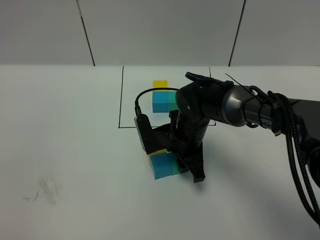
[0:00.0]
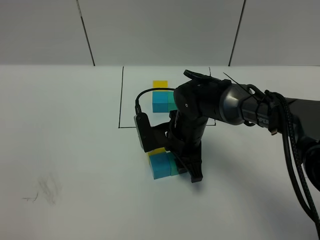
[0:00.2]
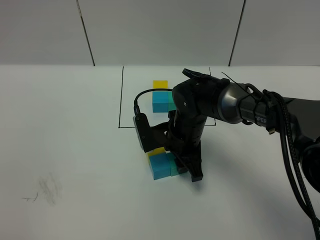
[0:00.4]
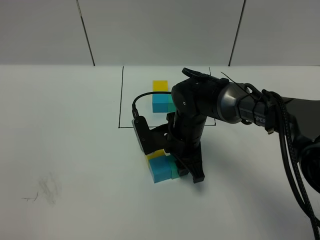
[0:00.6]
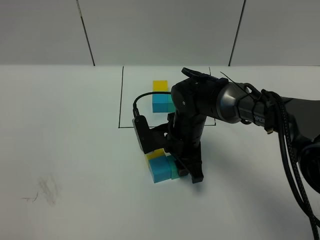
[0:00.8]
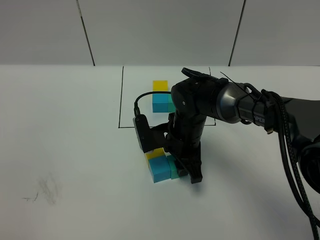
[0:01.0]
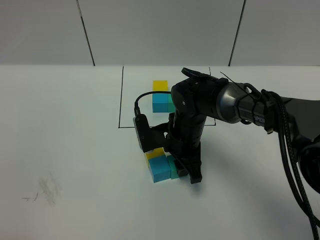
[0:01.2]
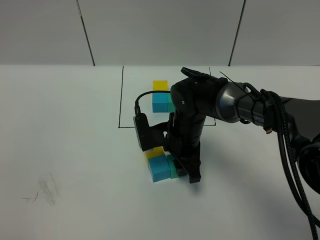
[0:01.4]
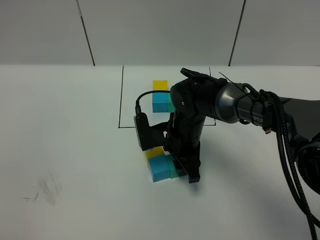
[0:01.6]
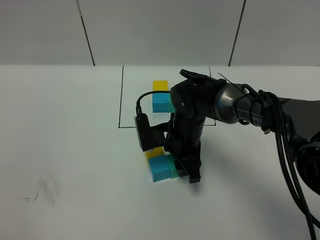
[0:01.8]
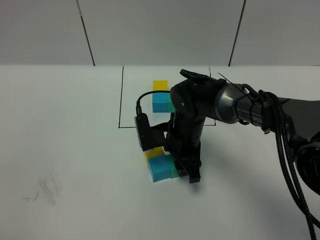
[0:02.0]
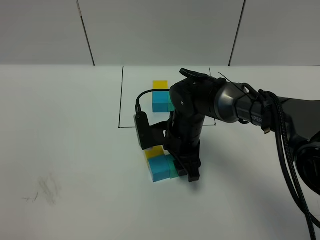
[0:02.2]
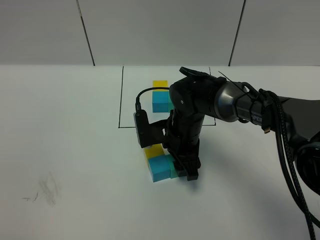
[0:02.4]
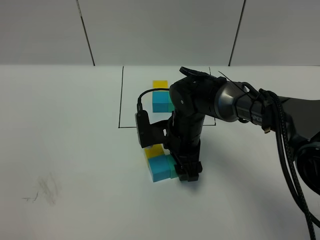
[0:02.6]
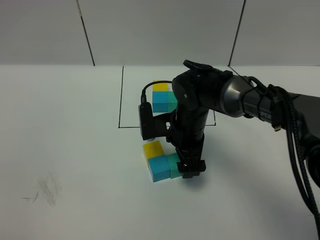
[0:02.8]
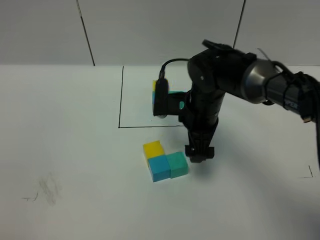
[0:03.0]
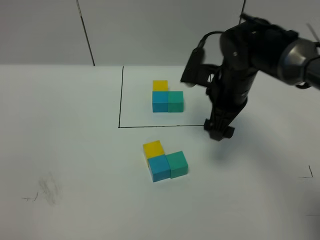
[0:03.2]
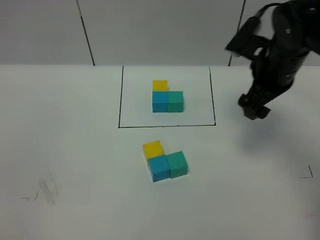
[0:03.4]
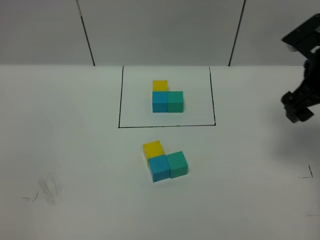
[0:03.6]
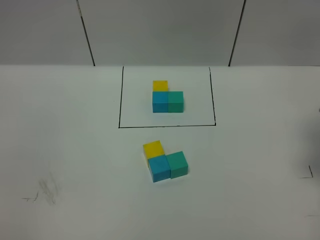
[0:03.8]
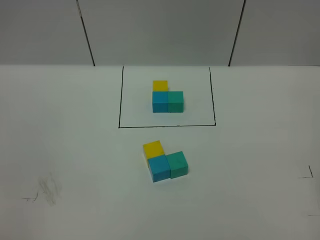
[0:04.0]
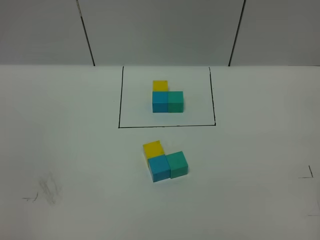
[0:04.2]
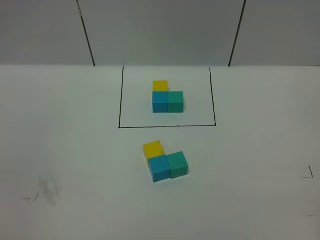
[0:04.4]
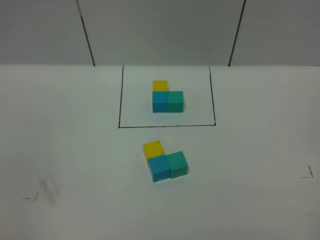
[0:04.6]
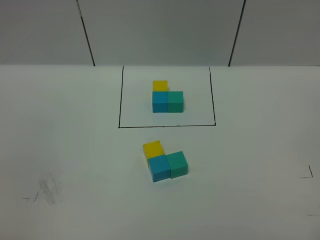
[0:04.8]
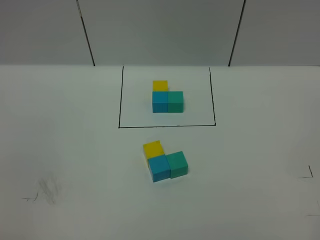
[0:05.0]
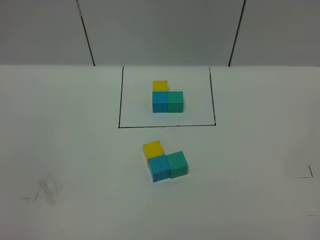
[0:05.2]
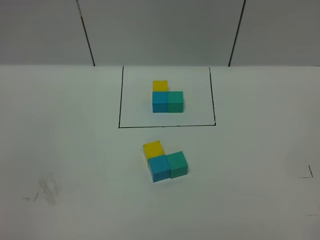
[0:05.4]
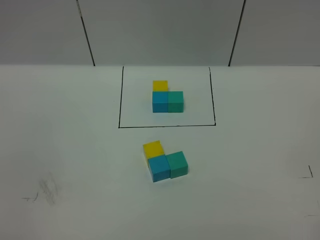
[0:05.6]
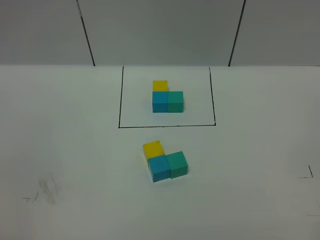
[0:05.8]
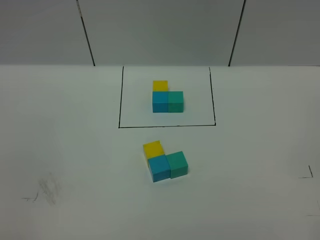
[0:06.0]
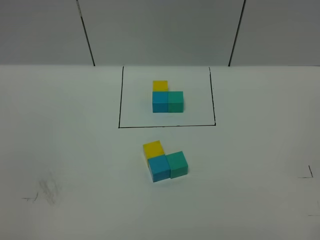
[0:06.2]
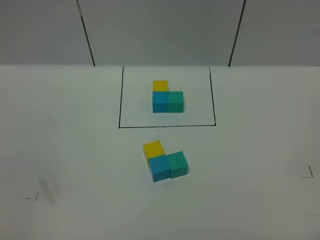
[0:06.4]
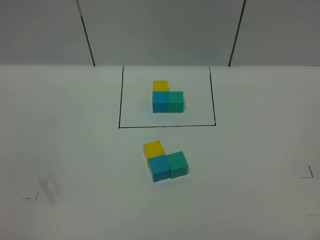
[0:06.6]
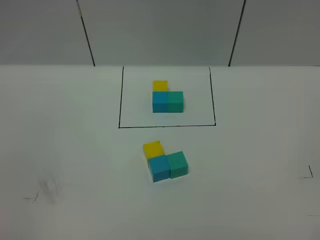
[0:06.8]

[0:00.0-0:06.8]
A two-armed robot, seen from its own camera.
Task of the whole recording: According to the building block template in front, assemble the scattered blocks together.
Step, 0:00.0 to 0:02.8: Put the green cube on the right of the blue cube.
0:00.0 to 0:01.4: The grippers make only small movements.
0:01.4 to 0:02.8: The right gripper opens.
0:02.8 to 0:04.0: The right gripper goes some 35 cm to the right, upward and backward.

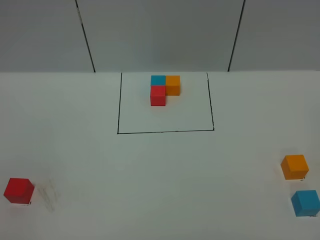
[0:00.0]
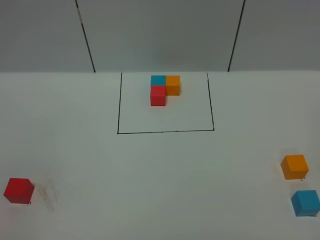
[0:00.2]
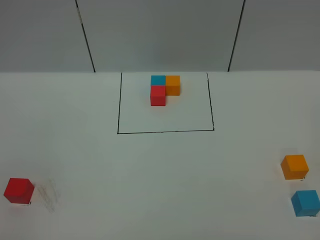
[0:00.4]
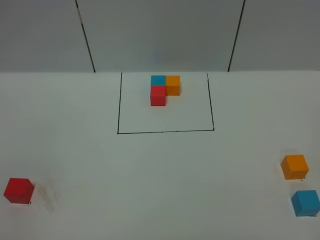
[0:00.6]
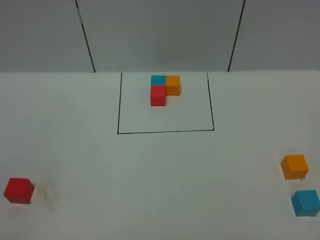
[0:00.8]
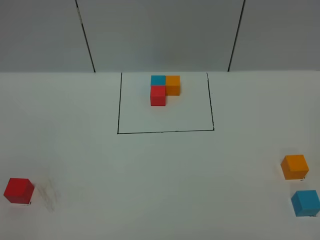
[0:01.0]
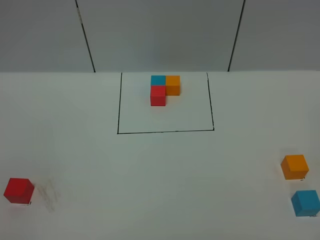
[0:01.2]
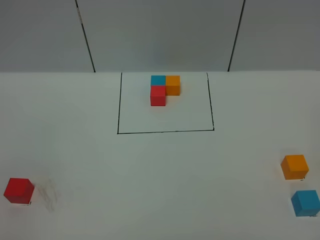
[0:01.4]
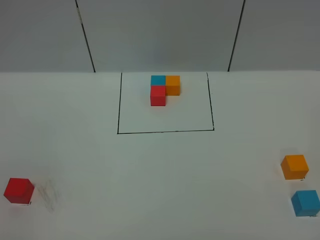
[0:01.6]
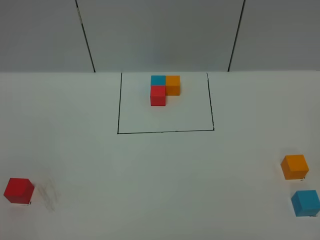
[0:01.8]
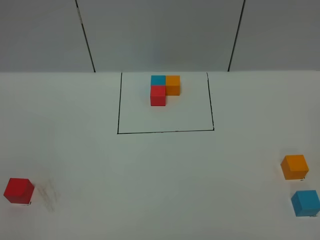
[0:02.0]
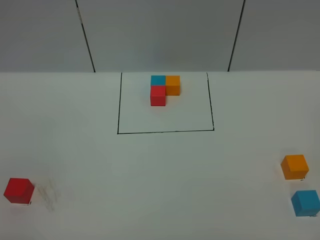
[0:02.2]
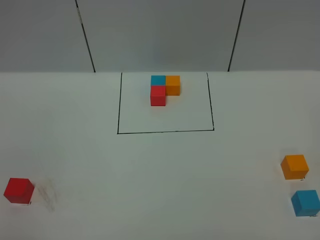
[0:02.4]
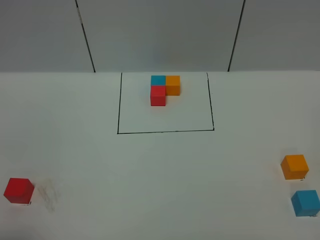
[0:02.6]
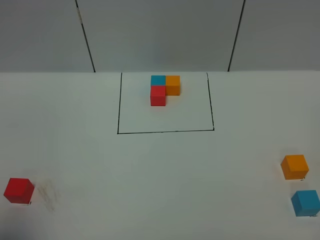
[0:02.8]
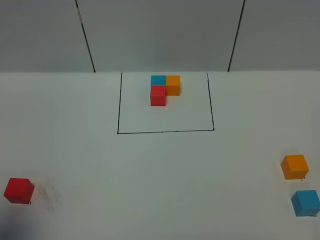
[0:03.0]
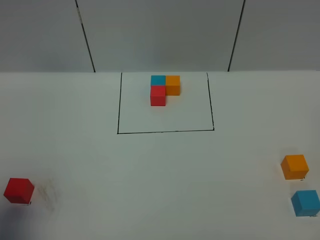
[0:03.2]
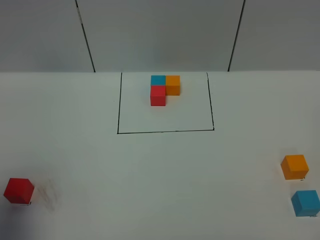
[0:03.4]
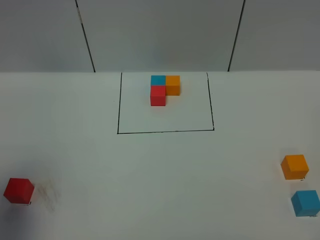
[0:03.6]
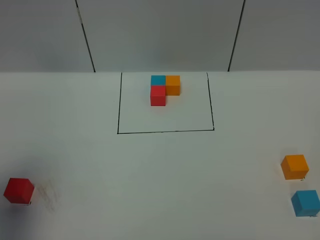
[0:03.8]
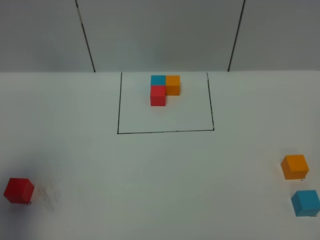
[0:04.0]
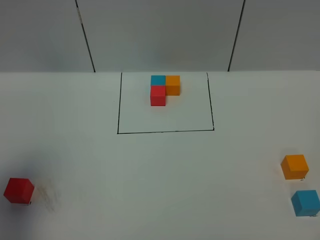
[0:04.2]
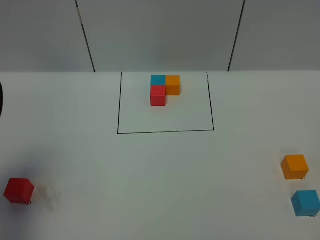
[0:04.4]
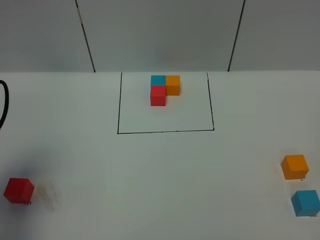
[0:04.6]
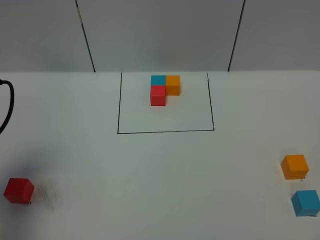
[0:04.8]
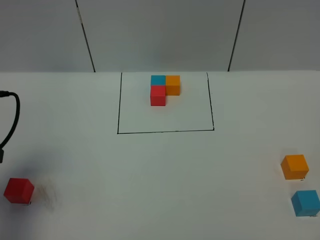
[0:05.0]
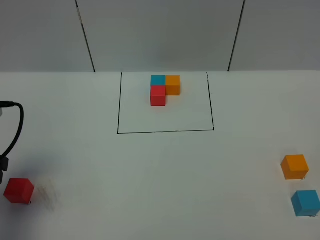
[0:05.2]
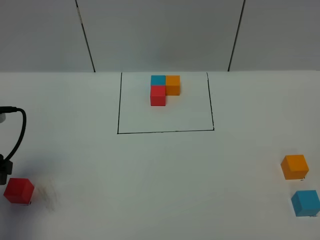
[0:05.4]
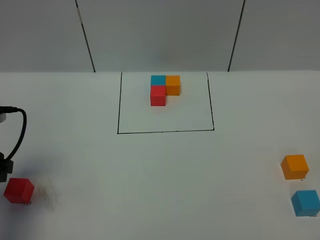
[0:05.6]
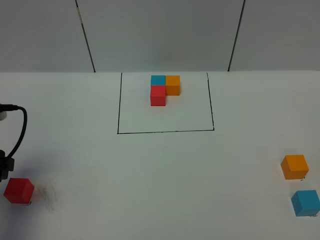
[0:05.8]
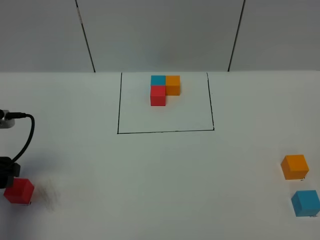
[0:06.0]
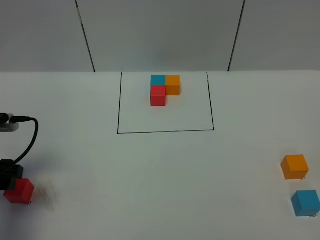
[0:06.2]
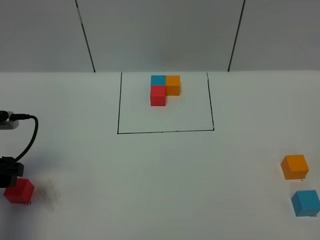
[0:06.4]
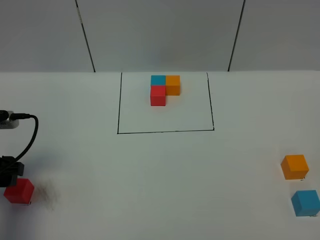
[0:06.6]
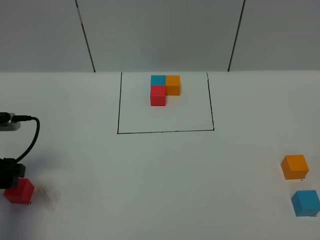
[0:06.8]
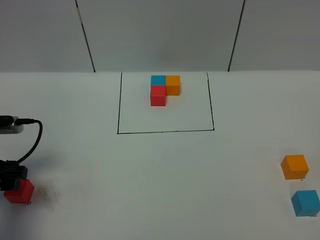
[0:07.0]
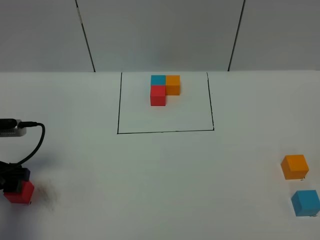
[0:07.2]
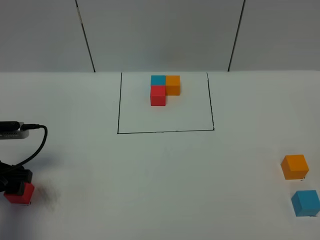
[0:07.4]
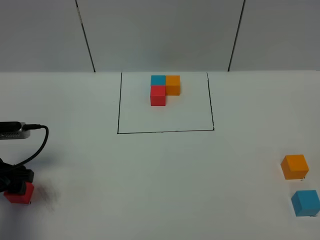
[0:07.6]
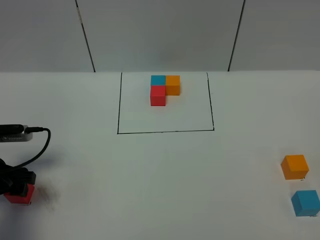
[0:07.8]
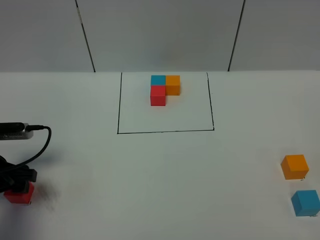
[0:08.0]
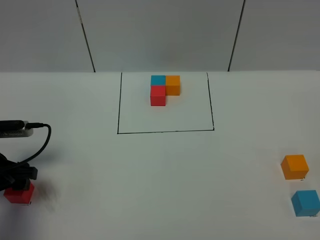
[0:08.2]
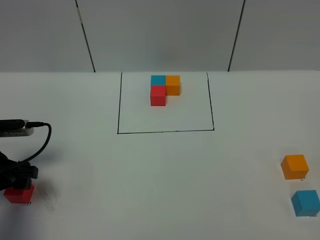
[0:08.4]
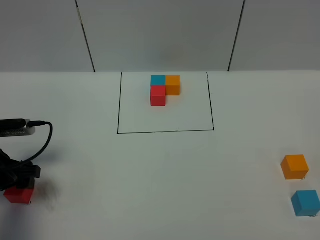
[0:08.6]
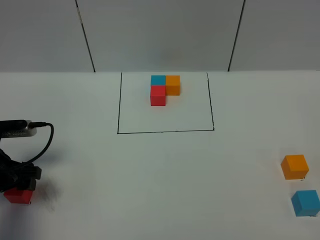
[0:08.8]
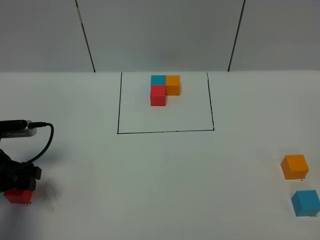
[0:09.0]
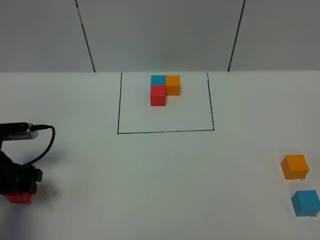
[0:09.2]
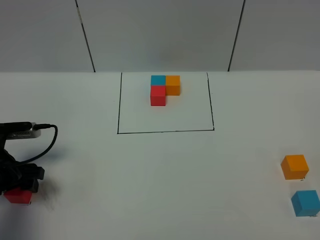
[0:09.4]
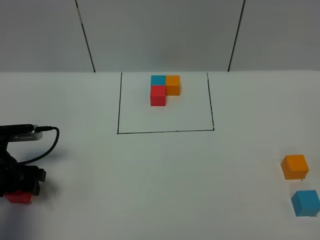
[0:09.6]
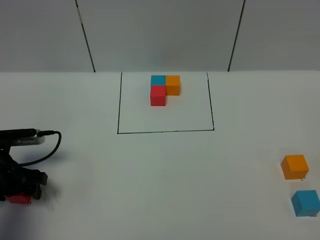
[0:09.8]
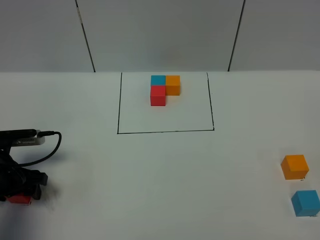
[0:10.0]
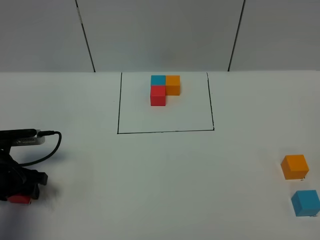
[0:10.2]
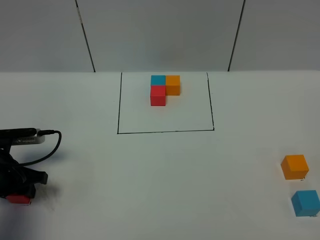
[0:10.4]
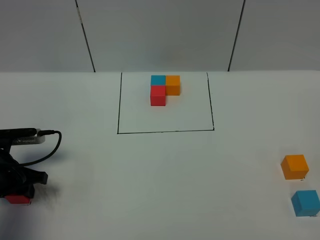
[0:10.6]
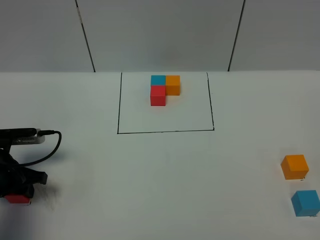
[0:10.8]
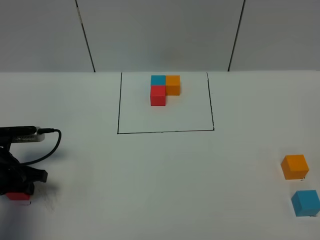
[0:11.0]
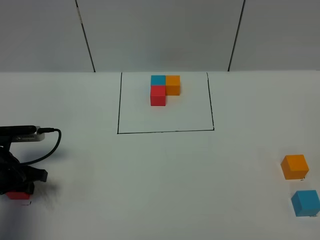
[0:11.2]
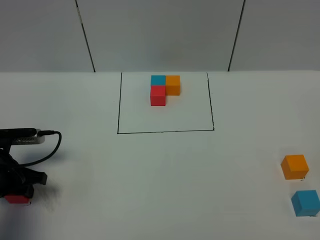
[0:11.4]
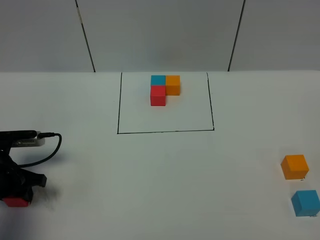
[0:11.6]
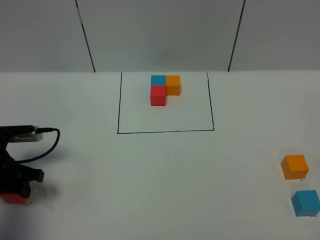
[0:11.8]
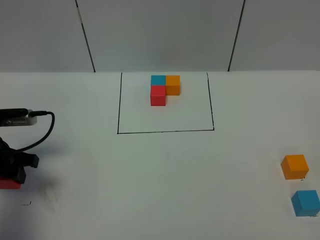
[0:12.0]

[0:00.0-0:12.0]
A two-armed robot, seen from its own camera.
Task of the whole recording: According to the building block template in front, assemble the scattered blocks together.
0:00.0 to 0:01.6: Both grippers stay about where they are.
0:01.6 to 0:03.0: The left gripper heads forward and upward, covering approximately 15 cm.
0:03.0 to 0:04.4: The left gripper is displaced forward and downward by roughly 15 cm.
0:04.4 to 0:06.0: The left gripper is displaced downward by some 10 cm.
0:06.0 to 0:07.6: The left gripper moves some 5 cm.
0:07.6 to 0:09.0: Neither gripper changes place.
0:09.0 to 0:10.4: The left gripper closes.
0:10.4 to 0:12.0: The left gripper travels upward by approximately 5 cm.

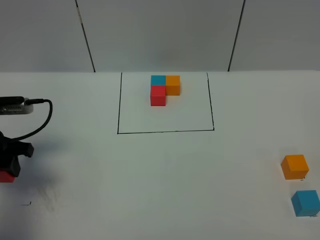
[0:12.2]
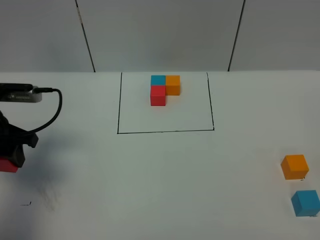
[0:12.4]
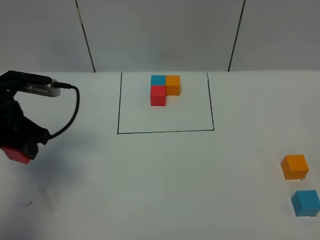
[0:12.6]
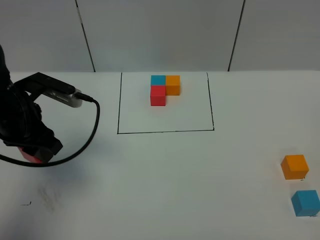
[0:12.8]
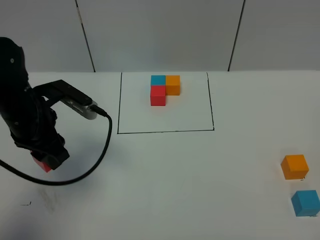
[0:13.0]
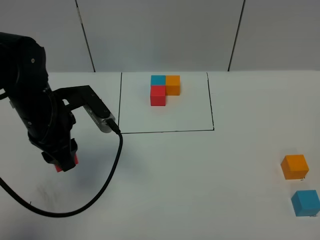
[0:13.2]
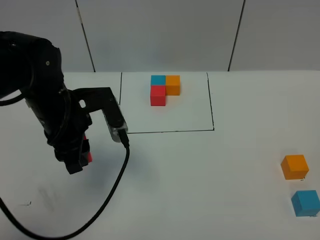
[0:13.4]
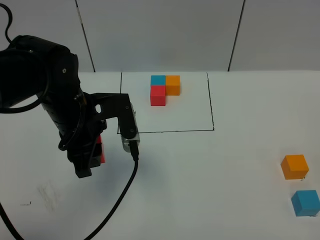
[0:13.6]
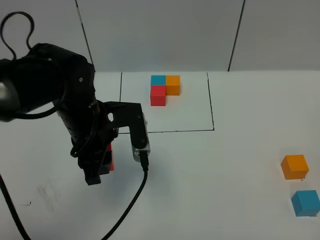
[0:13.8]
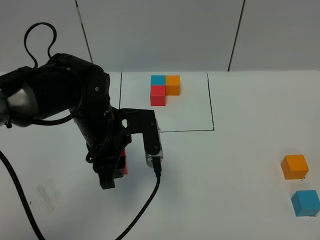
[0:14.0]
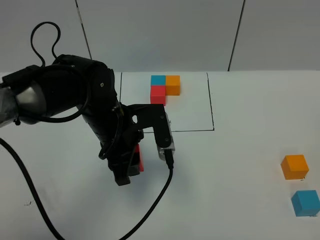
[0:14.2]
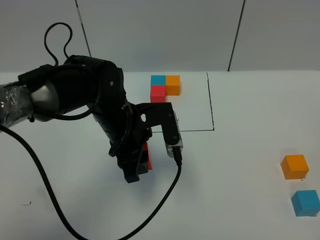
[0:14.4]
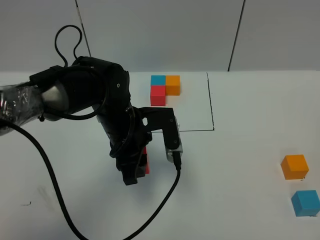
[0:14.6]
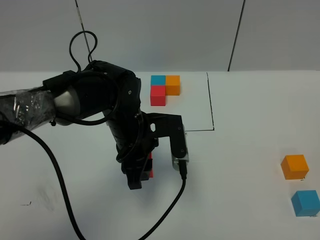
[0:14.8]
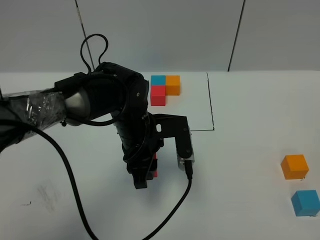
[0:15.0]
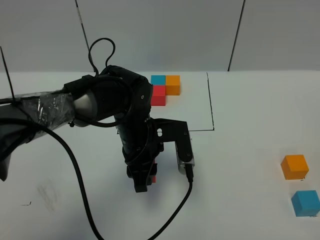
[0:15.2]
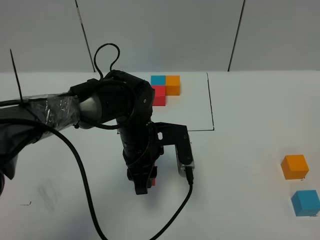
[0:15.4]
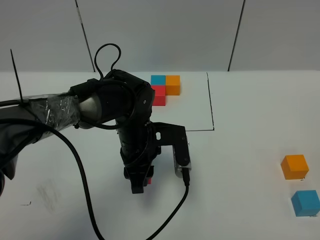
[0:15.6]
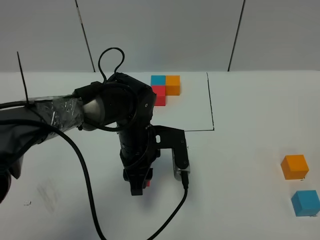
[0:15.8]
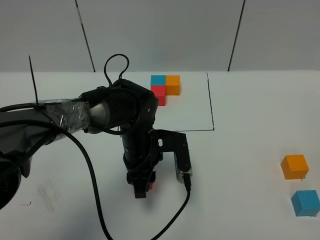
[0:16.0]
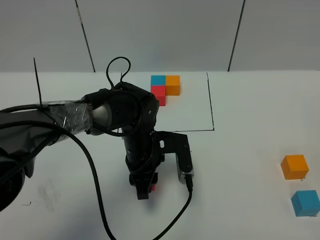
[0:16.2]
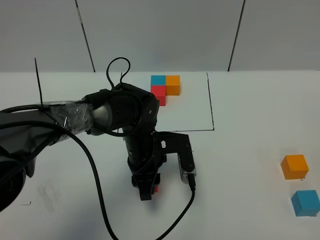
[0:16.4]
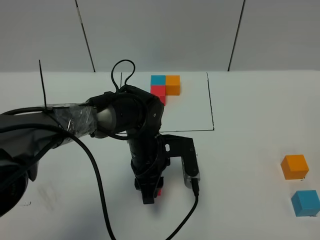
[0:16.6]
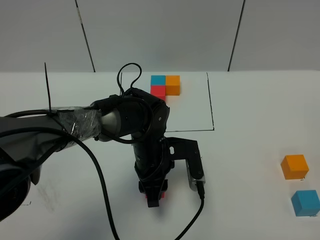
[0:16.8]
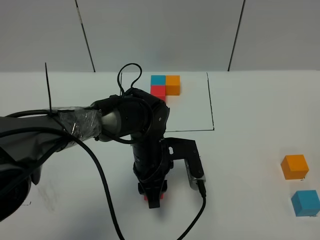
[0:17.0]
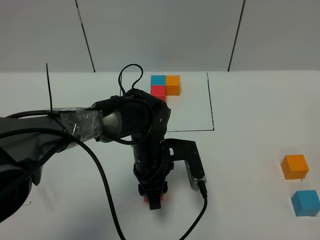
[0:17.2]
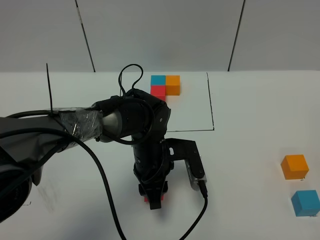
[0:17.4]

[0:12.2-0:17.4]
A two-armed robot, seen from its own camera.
Task of the whole recording: According to the building block template in front, assemble the scattered blocks together.
0:12.2 to 0:14.0: The left gripper heads to the right, covering some 20 cm.
0:14.0 to 0:15.6: The left gripper goes roughly 10 cm downward and to the right.
0:15.6 to 0:17.4: There are only small adjustments of the grippers.
